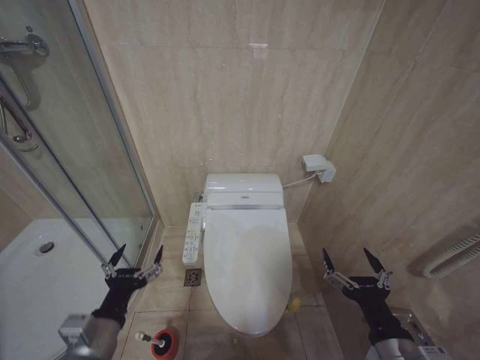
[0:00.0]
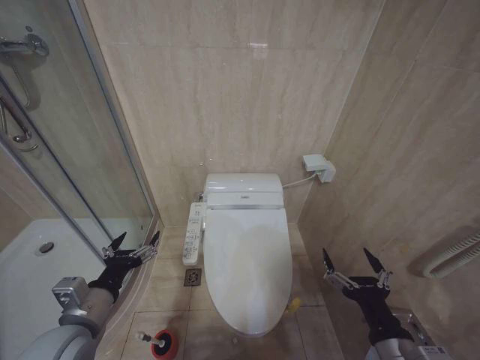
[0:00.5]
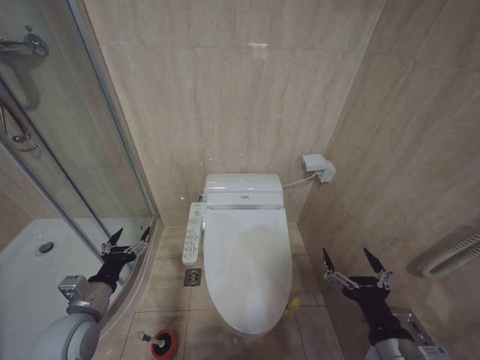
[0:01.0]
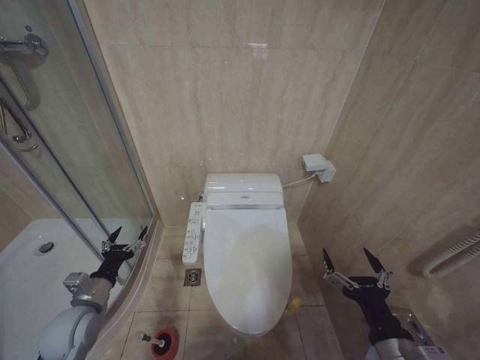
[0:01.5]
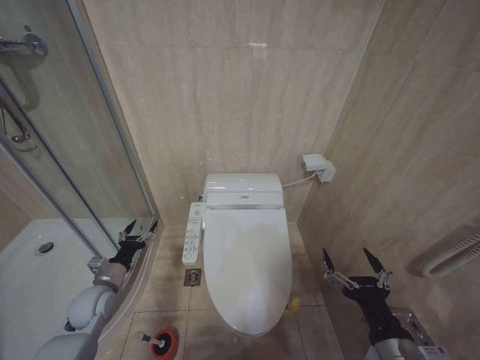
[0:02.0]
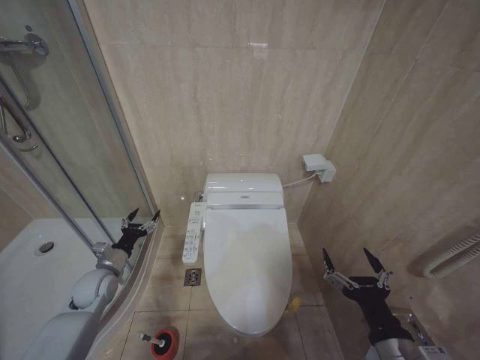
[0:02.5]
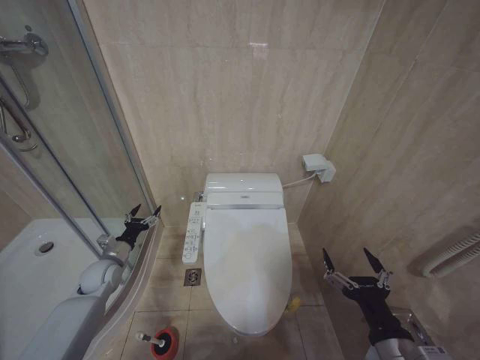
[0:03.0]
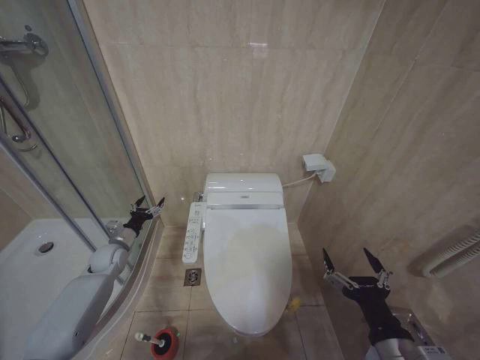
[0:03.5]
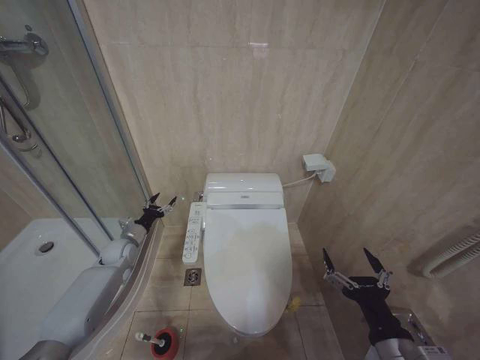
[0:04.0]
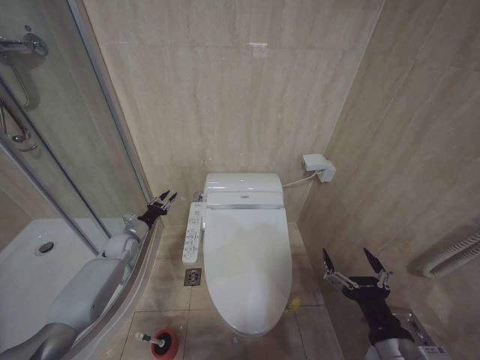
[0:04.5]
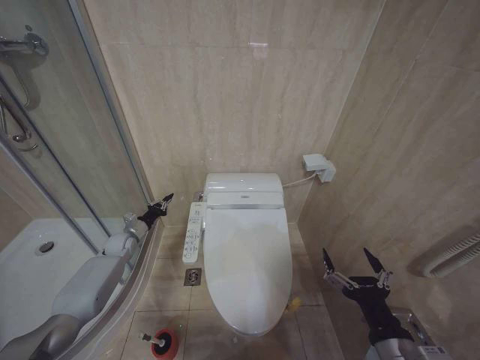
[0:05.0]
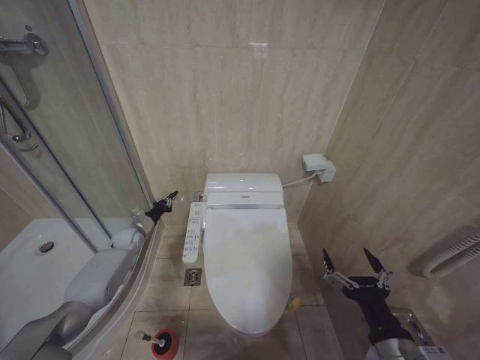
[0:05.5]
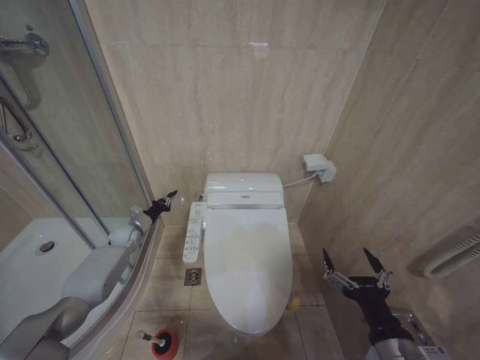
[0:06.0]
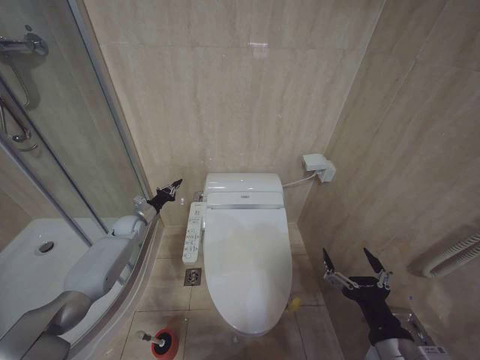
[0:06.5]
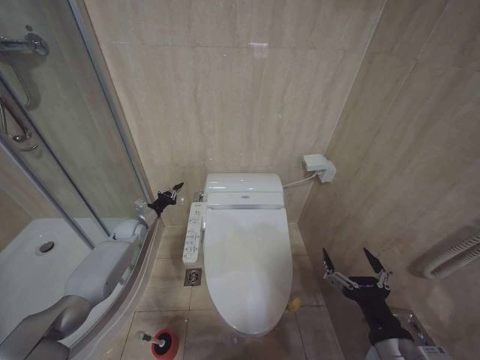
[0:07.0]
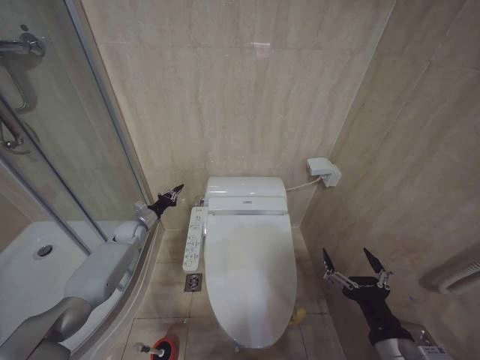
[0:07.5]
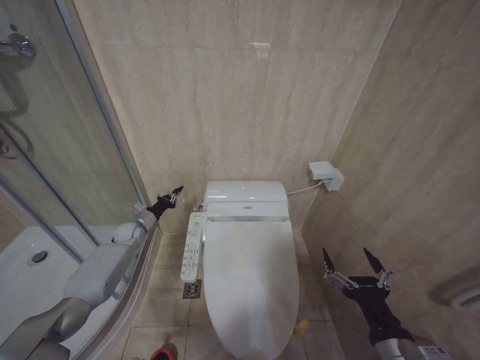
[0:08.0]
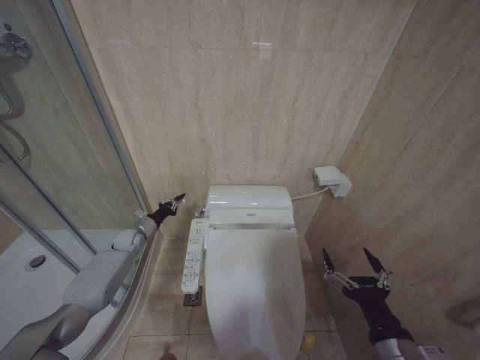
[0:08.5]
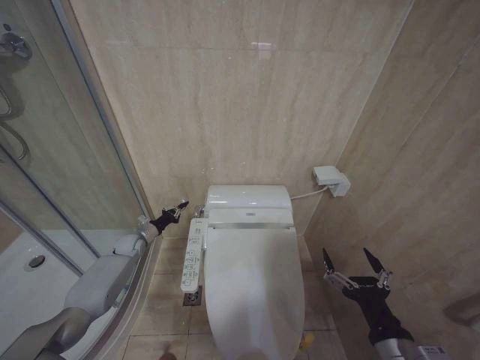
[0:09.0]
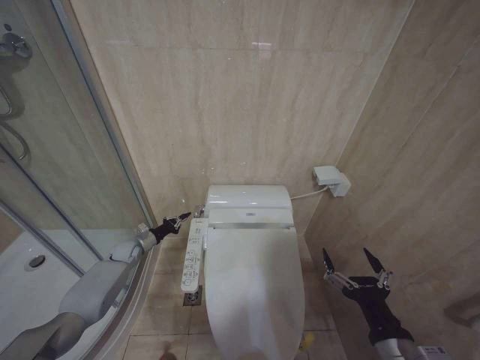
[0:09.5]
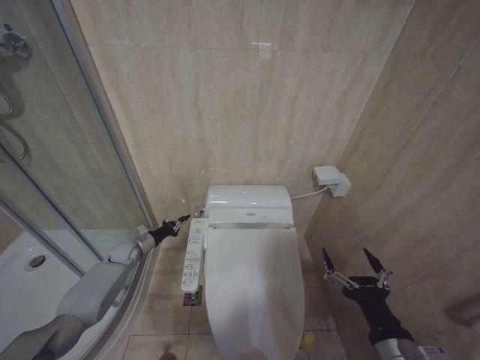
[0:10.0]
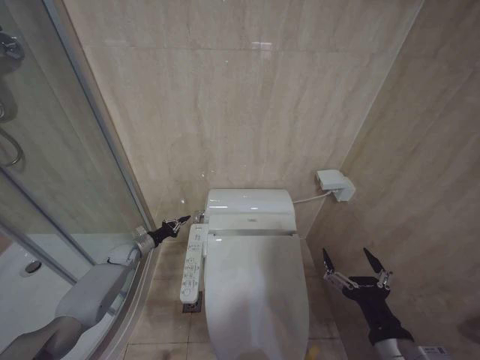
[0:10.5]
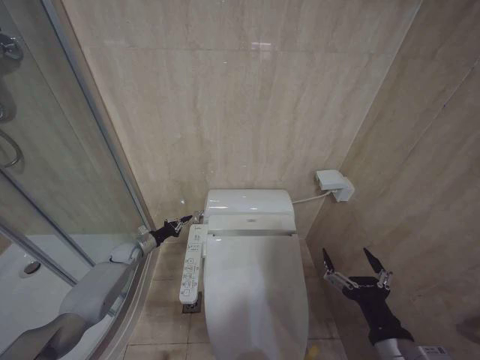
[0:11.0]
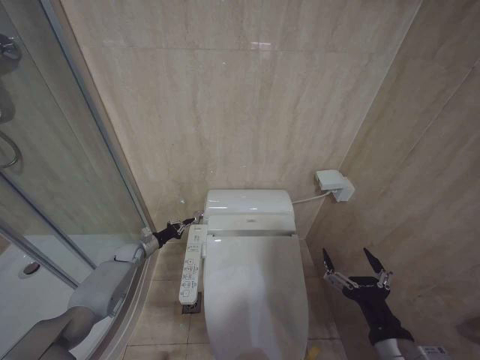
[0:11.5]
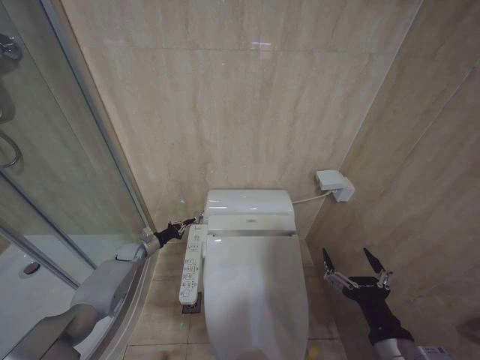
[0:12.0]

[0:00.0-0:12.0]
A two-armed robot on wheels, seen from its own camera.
Task of the whole recording: Open the toilet lid, clean the toilet bowl with a toilet brush, close the toilet lid, and flush.
0:00.0 to 0:02.0: The left gripper travels forward, downward and to the left by some 25 cm.
0:02.0 to 0:04.0: The left gripper heads forward, covering about 15 cm.
0:04.0 to 0:06.0: The left gripper goes roughly 5 cm forward, and closes up.
0:06.0 to 0:08.0: The grippers make only small movements.
0:08.0 to 0:10.0: The left gripper travels downward by about 5 cm.
0:10.0 to 0:12.0: There are only small adjustments of the grippers.

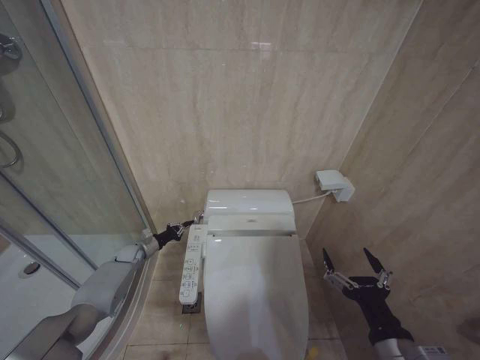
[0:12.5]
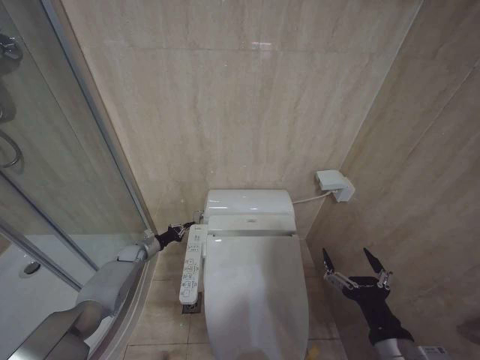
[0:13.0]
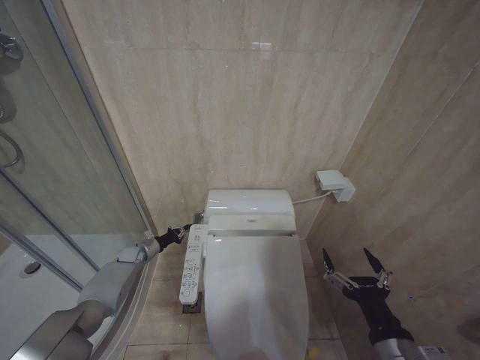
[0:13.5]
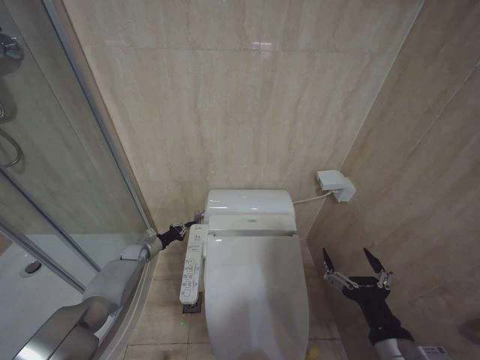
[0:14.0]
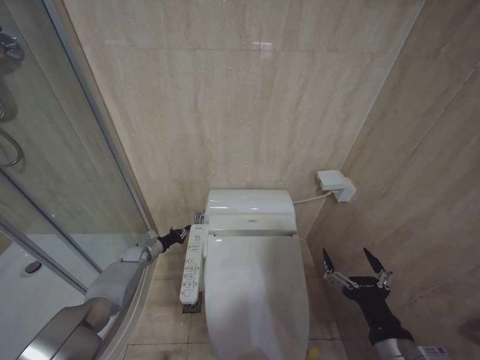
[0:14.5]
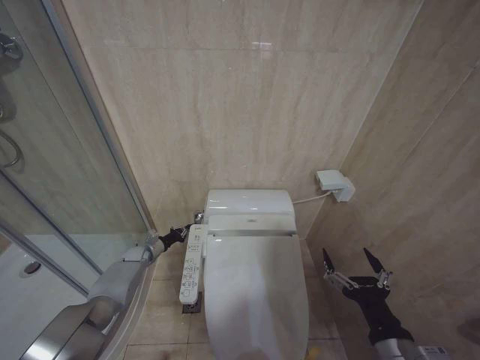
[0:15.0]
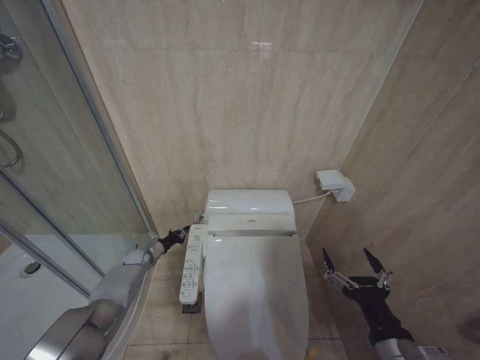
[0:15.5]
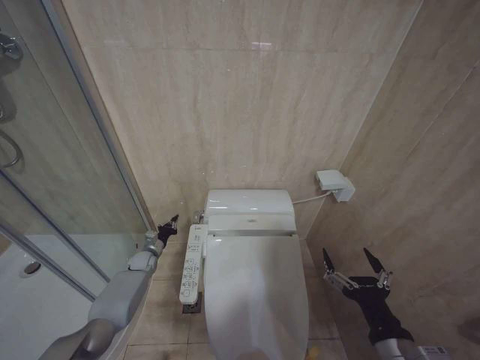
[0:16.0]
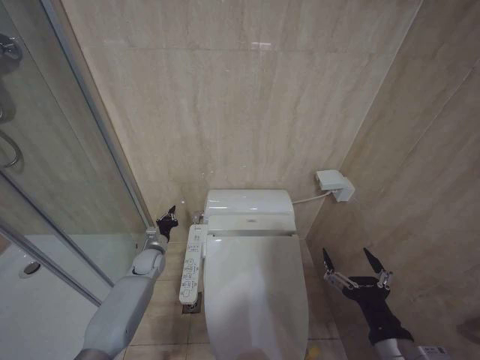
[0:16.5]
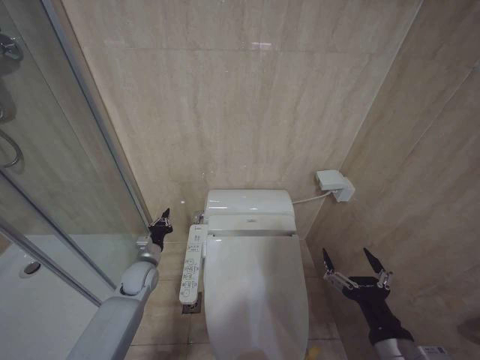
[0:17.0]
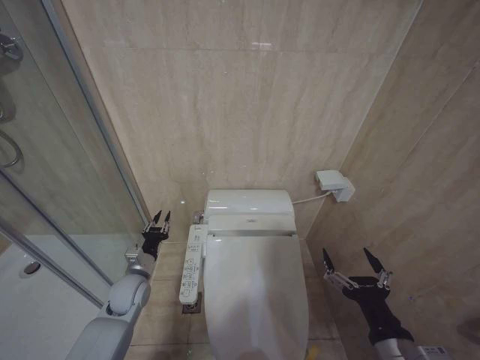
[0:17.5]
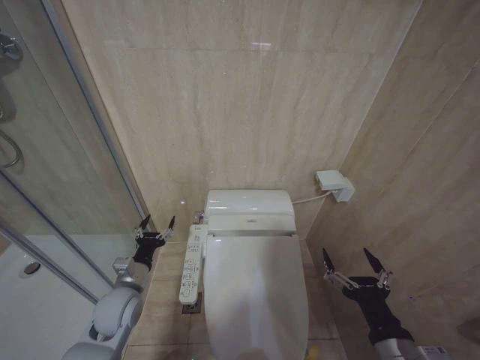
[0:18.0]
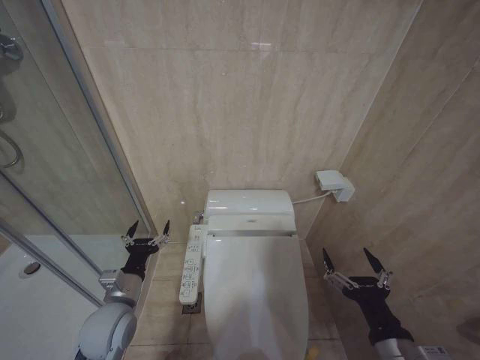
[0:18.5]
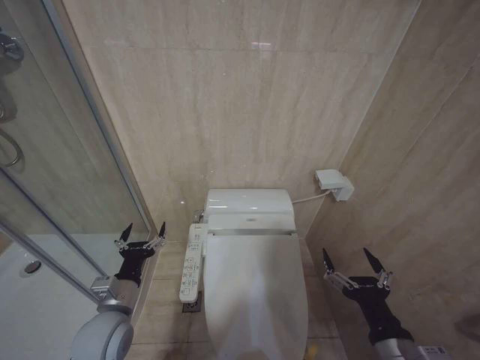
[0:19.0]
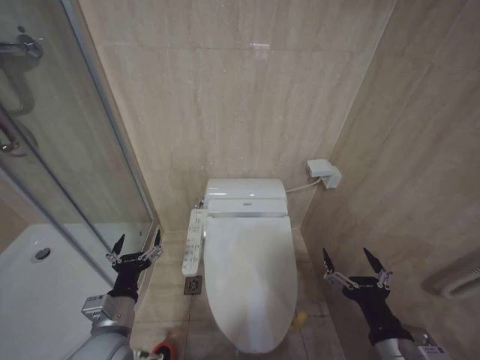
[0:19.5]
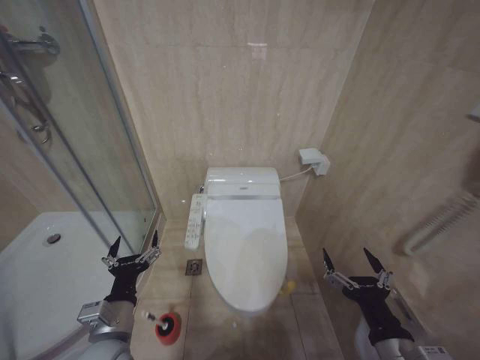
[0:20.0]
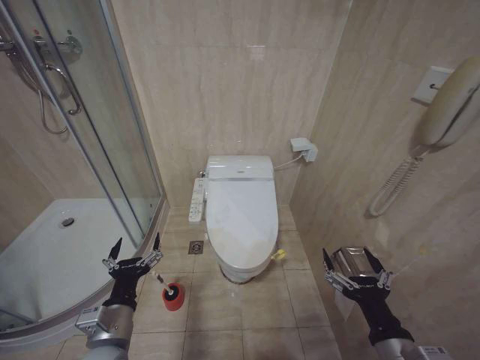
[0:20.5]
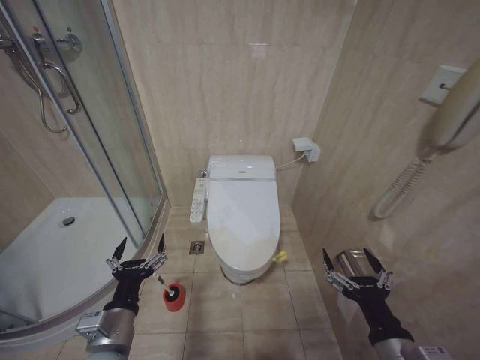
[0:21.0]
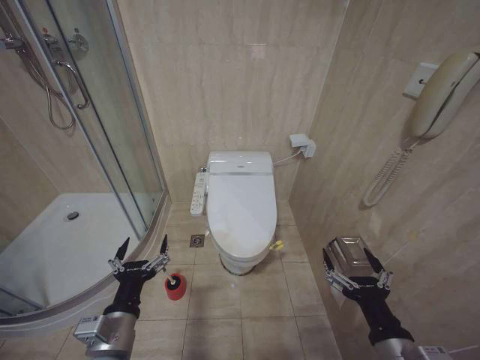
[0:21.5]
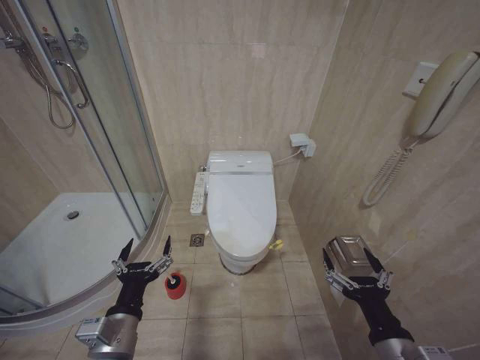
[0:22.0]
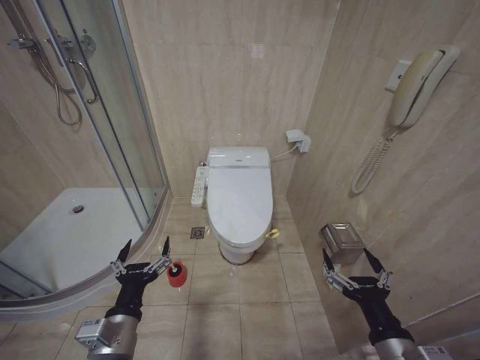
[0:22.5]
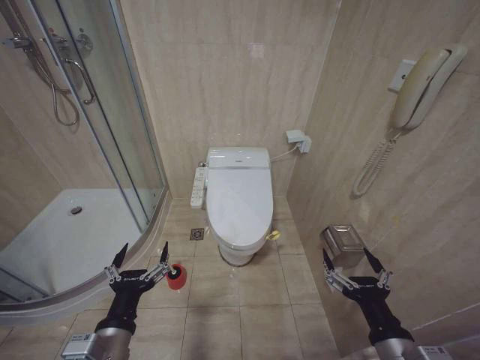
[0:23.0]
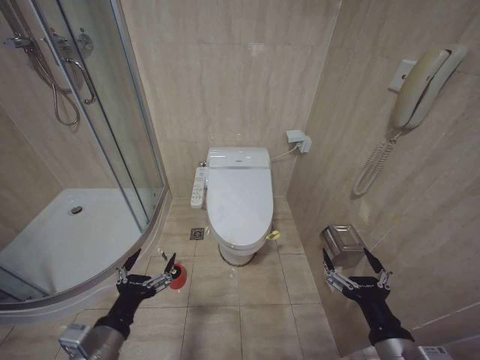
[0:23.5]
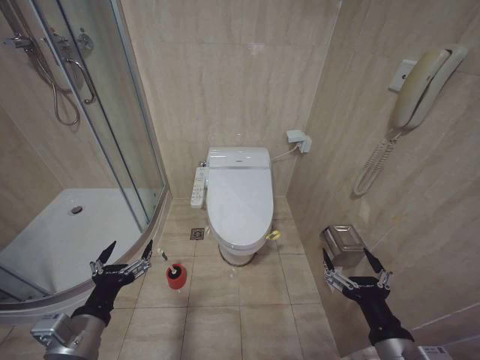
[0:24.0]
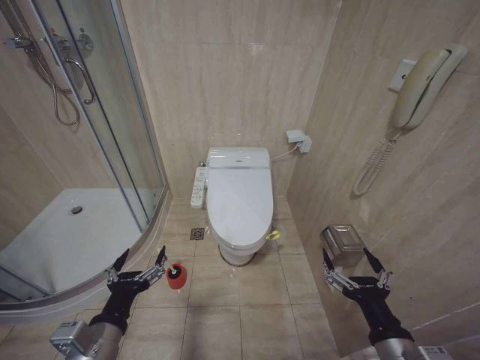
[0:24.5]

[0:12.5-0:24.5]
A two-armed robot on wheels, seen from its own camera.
Task of the whole recording: Open the toilet lid, clean the toilet bowl with a toilet brush, close the toilet lid, and flush.
0:12.5 to 0:14.5: The grippers stay close to where they were, moving slightly.
0:14.5 to 0:16.5: The left gripper is displaced to the right by approximately 10 cm.
0:16.5 to 0:18.5: The left gripper travels backward and upward by some 25 cm, and opens.
0:18.5 to 0:20.5: The left gripper goes roughly 10 cm backward.
0:20.5 to 0:22.5: The grippers stay close to where they were, moving slightly.

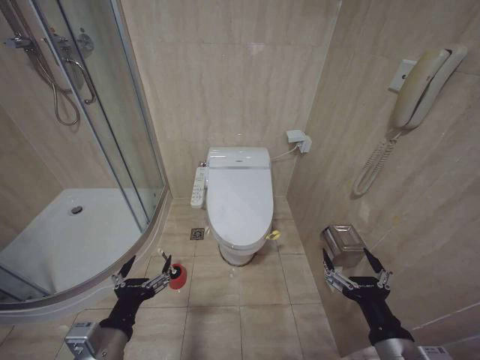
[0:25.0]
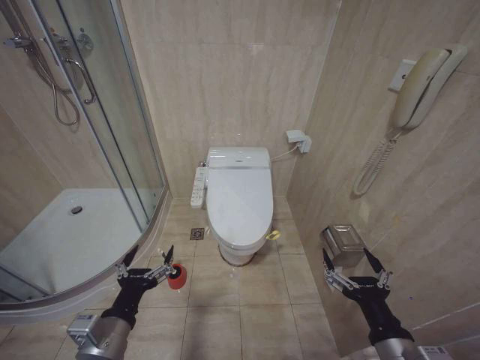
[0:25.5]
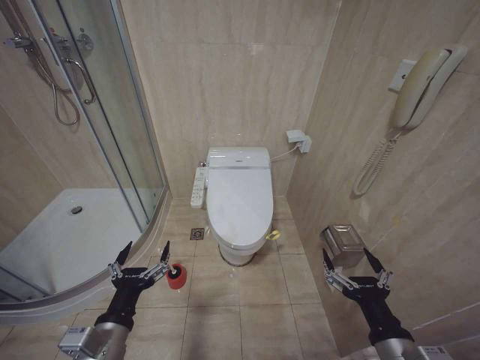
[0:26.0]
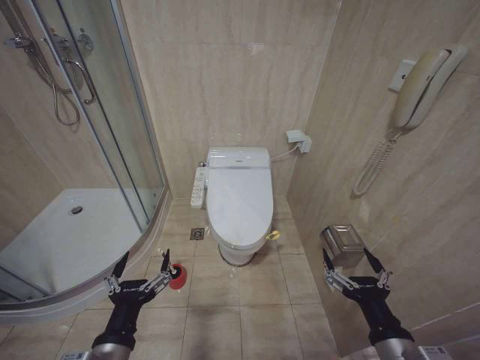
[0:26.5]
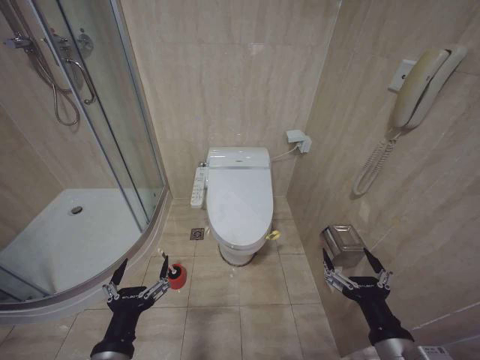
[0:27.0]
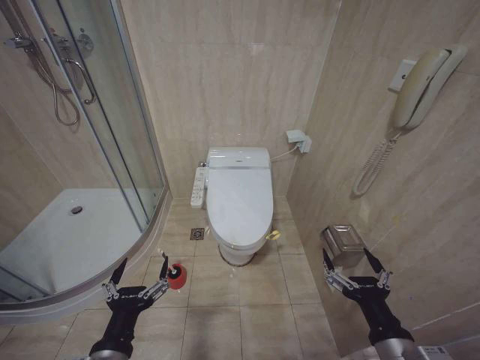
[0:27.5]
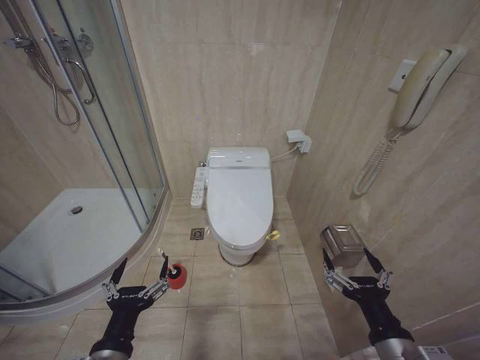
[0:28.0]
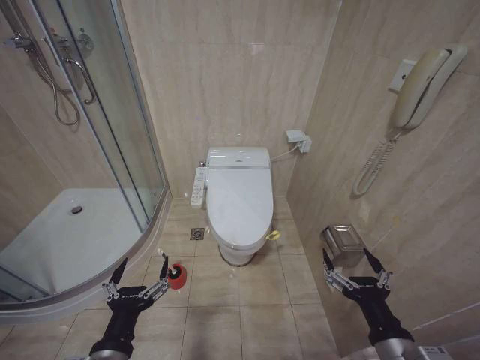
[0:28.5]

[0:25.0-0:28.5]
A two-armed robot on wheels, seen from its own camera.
Task of the whole recording: Open the toilet lid, clean the toilet bowl with a toilet brush, close the toilet lid, and flush.
0:25.0 to 0:27.0: The grippers make only small movements.
0:27.0 to 0:28.5: Both grippers stay about where they are.
